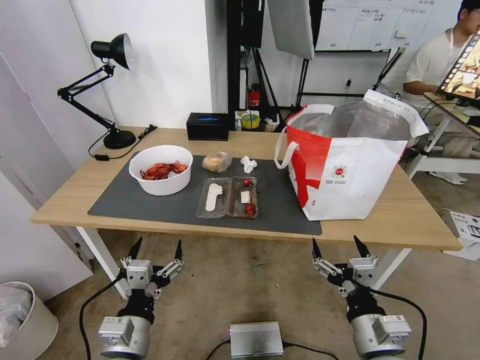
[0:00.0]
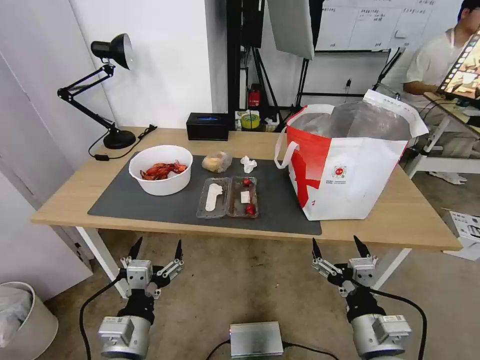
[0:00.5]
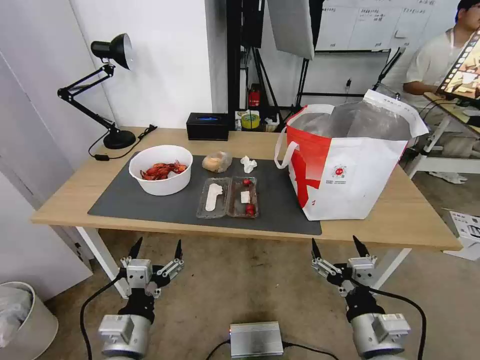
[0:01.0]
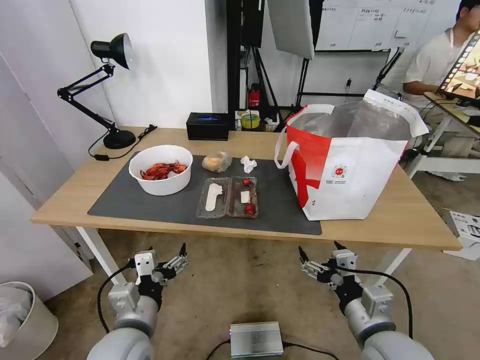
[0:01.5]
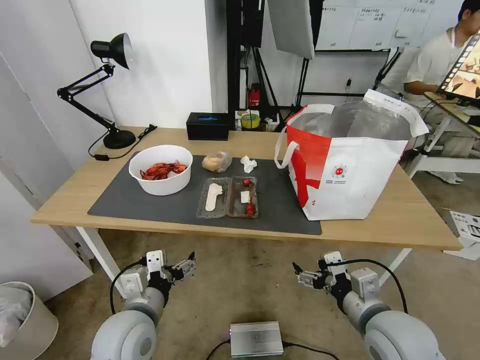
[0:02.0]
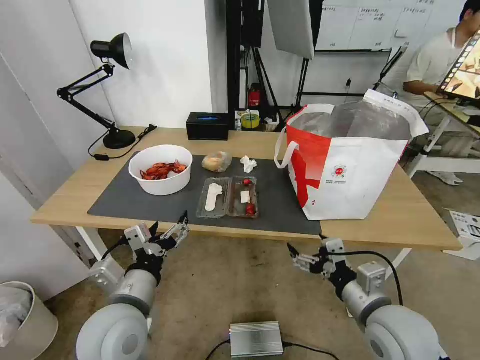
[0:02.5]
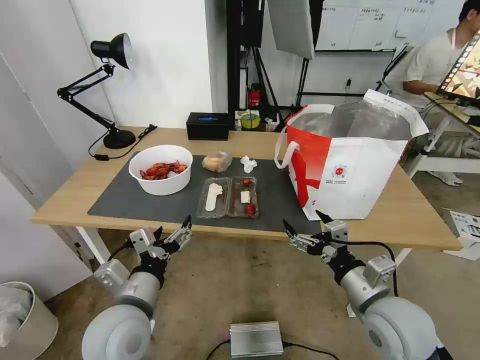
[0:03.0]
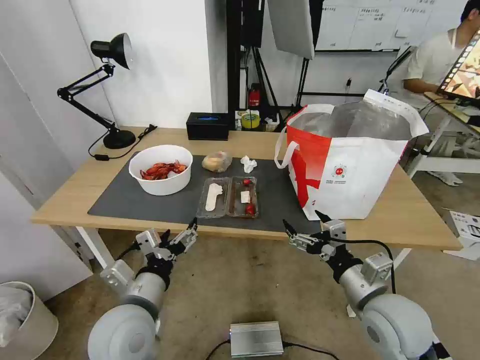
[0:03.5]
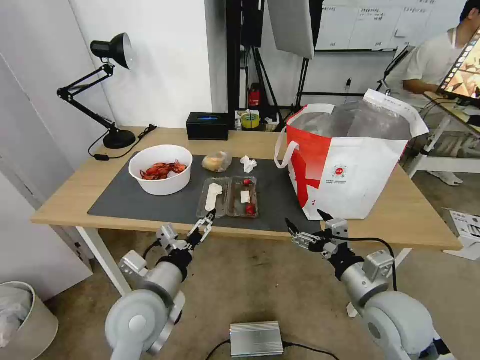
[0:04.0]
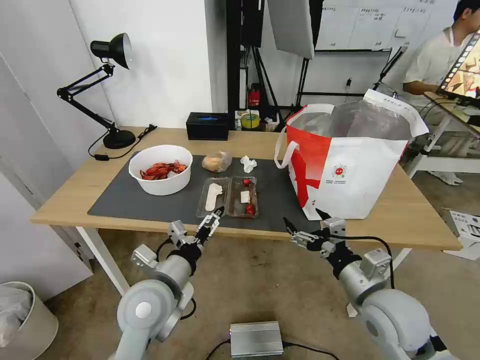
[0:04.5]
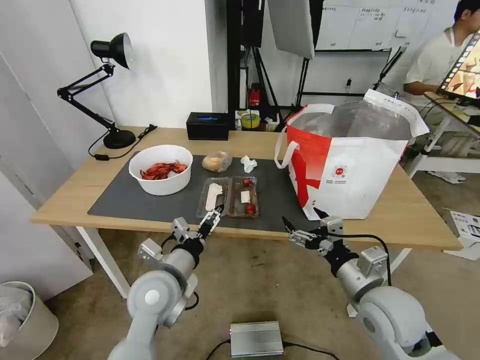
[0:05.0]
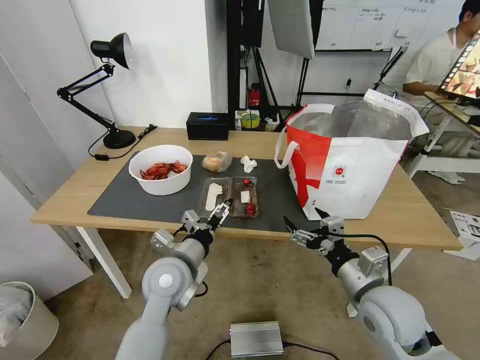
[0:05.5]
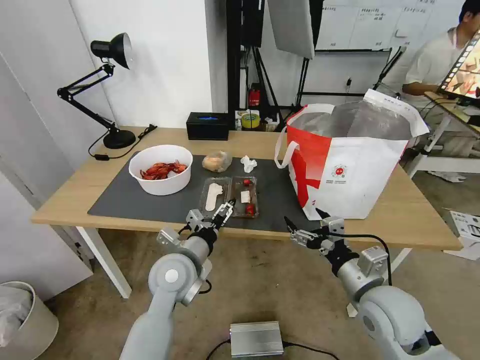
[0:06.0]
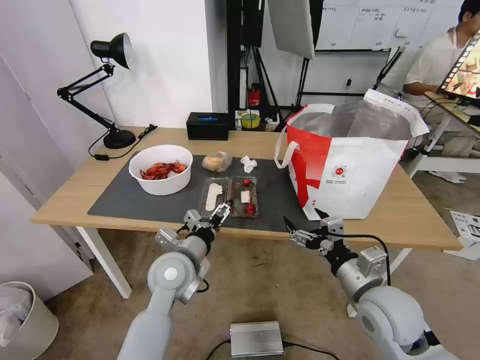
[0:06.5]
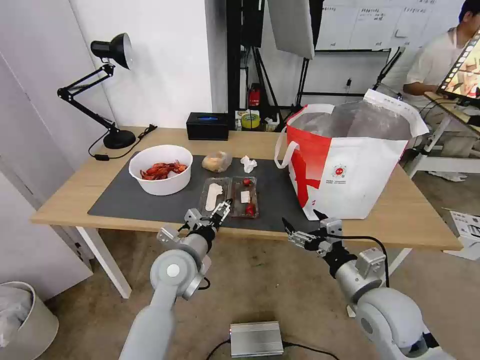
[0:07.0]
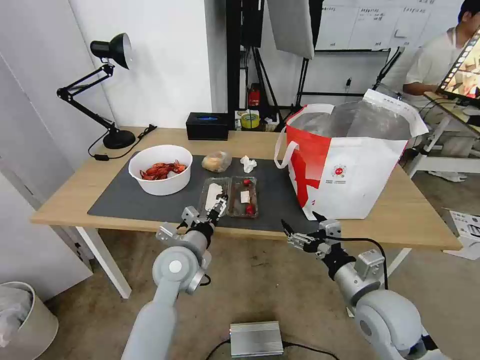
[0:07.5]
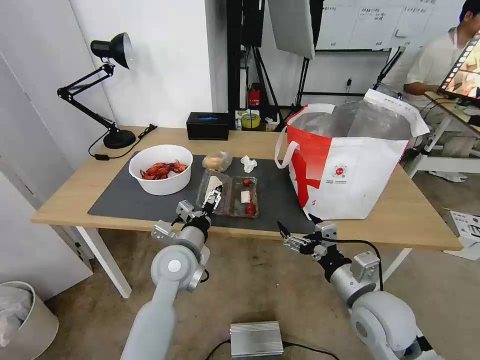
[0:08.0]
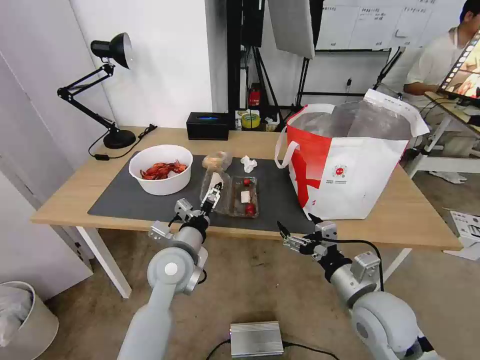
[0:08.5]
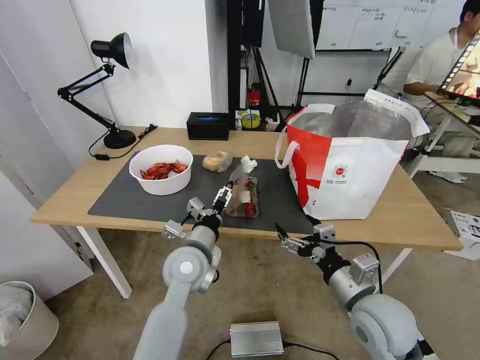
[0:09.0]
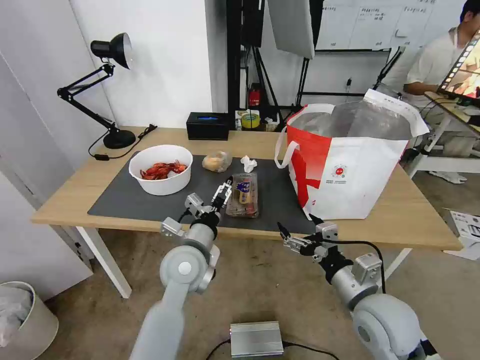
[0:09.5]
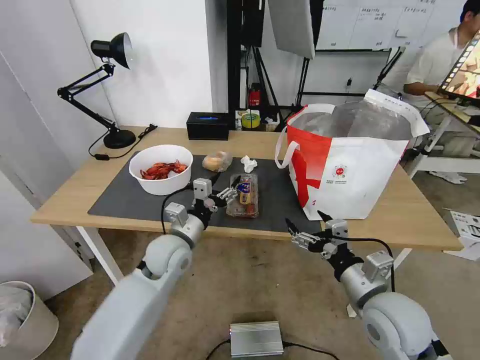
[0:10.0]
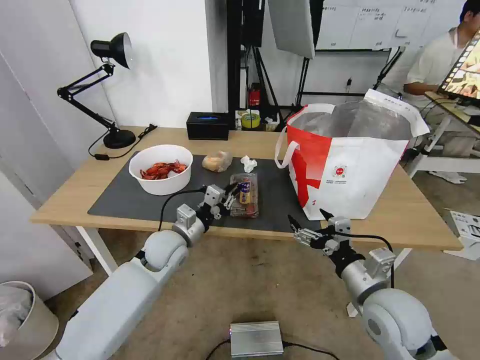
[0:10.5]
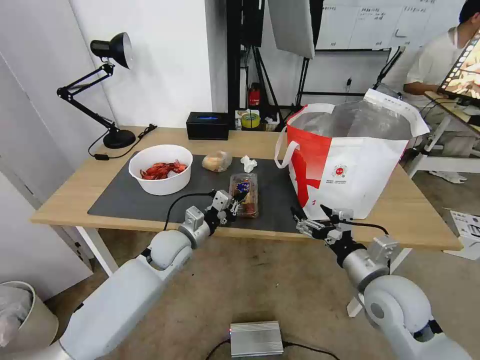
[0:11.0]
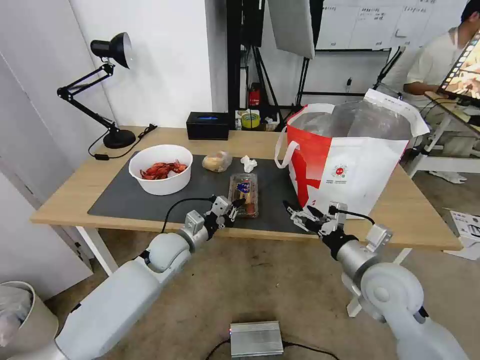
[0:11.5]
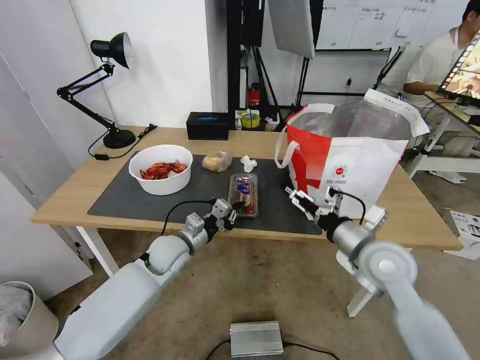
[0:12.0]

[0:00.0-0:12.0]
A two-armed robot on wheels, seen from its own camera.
Task of the whole recording: Pick up the trash from the table and place it into the takeout bag.
0:04.0 to 0:06.0: The left gripper travels forward by approximately 10 cm.
0:06.0 to 0:08.0: The grippers stay close to where they were, moving slightly.
0:10.0 to 0:12.0: The right gripper heads forward, covering about 10 cm. Meanwhile the left gripper moves some 5 cm, and closes its fingers.

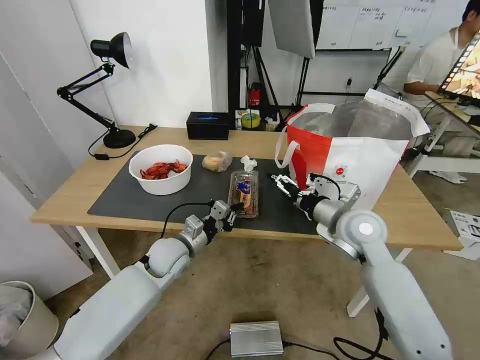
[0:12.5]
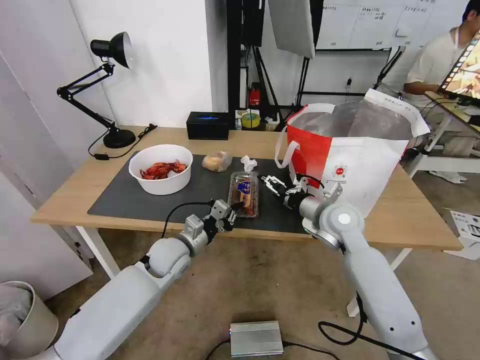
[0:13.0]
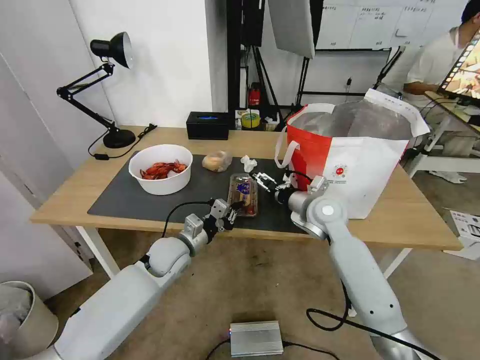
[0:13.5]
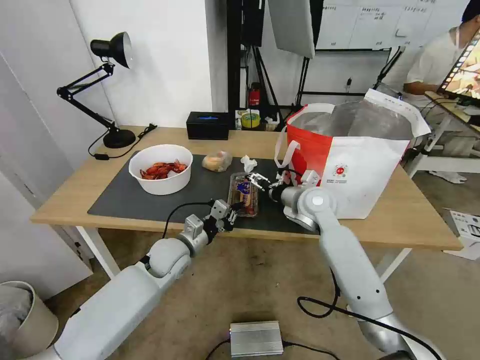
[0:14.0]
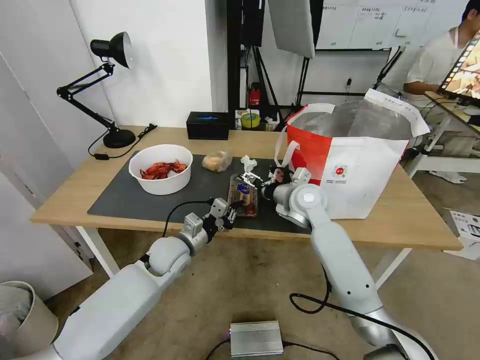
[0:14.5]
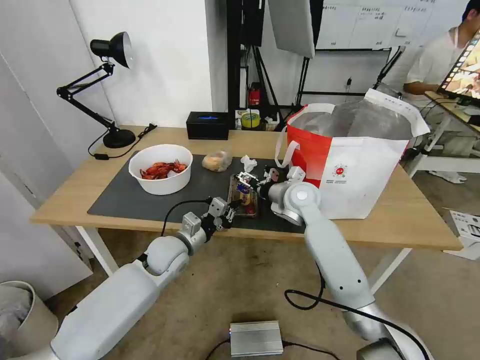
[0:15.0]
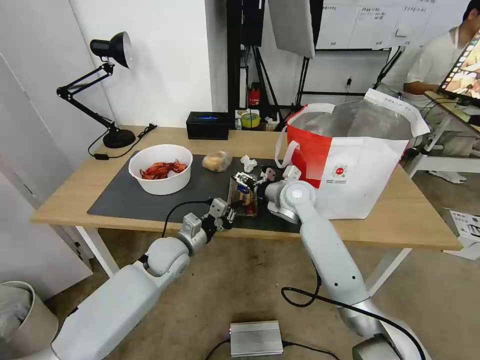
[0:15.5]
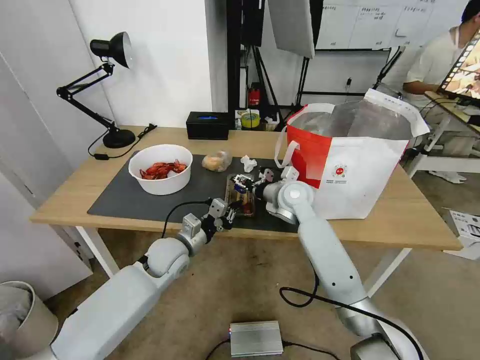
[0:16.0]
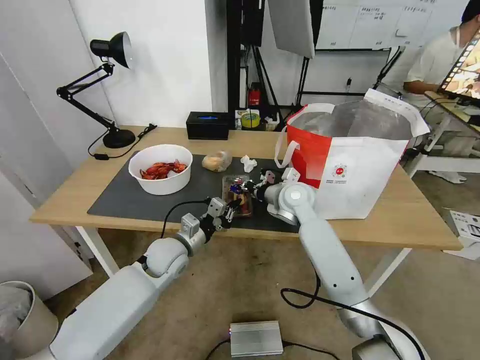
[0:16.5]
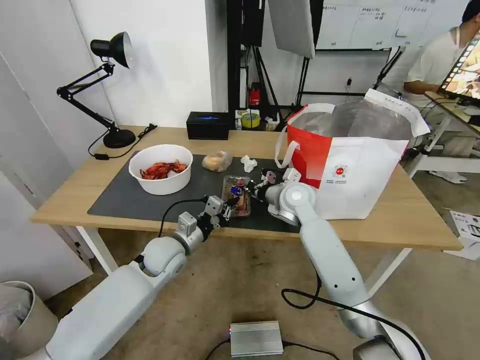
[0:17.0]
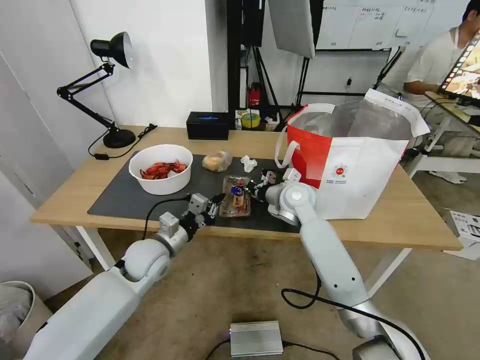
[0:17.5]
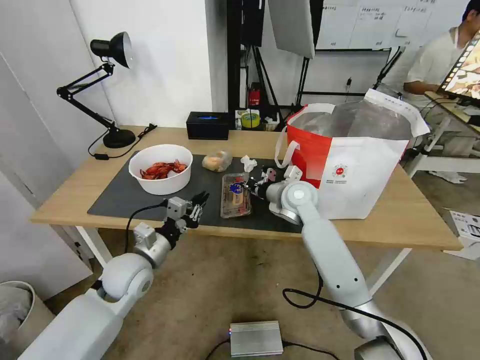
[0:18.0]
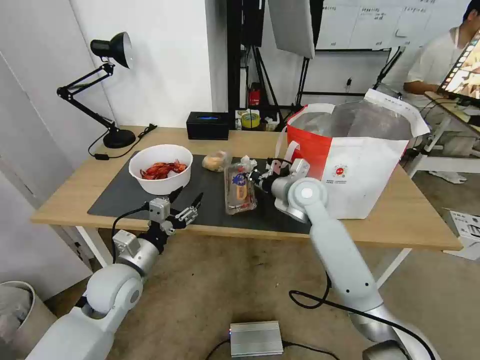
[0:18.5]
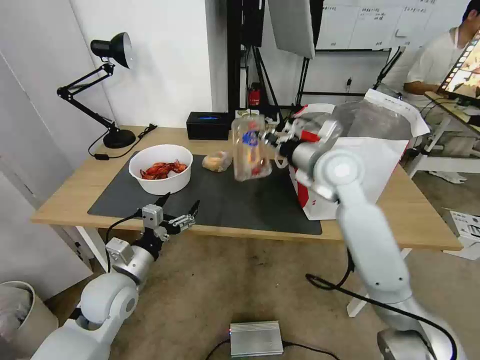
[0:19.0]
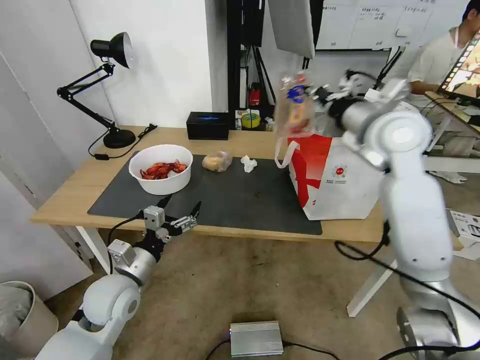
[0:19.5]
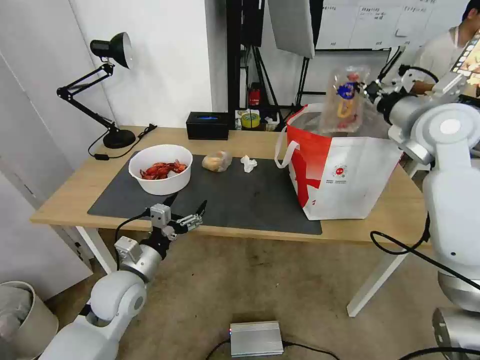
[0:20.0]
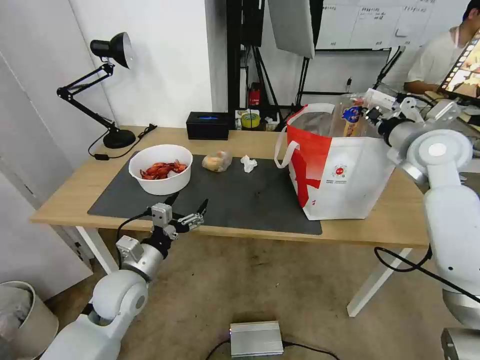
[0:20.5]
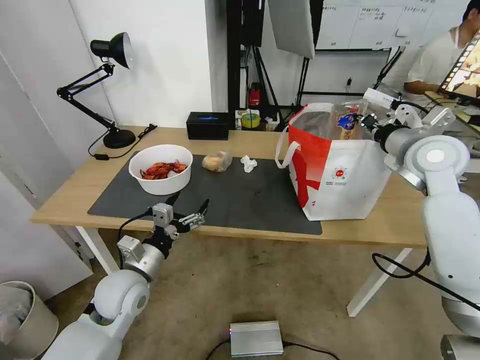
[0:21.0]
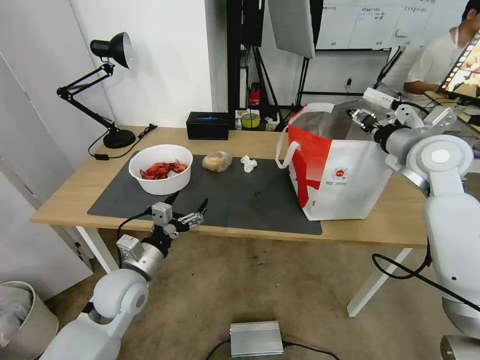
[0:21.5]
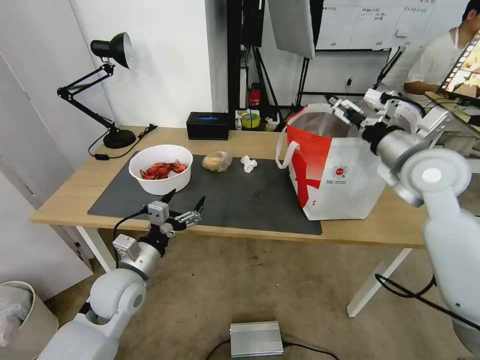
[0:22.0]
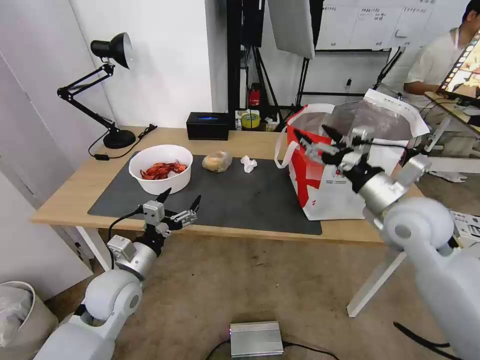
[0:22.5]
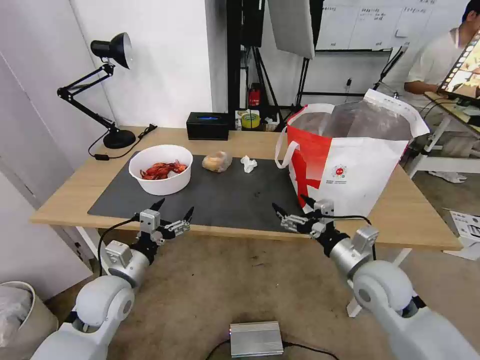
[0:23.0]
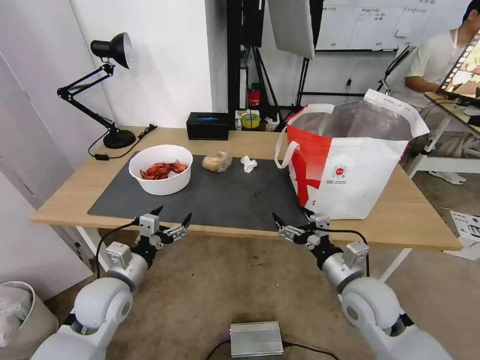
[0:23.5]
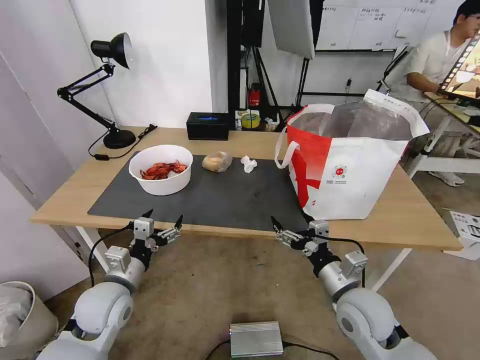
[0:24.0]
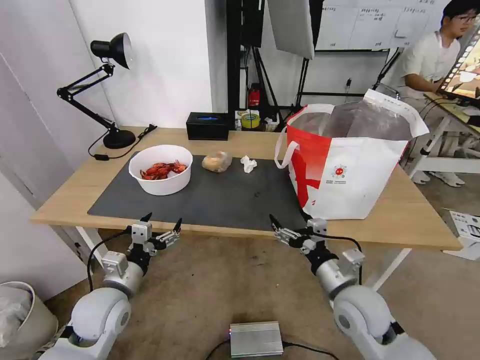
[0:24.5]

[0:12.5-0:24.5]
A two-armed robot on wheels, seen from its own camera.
Task of the whole recording: Pick up the trash from the table and place it into the takeout bag.
0:12.5 to 0:14.5: The right gripper goes roughly 15 cm forward and to the left.
0:14.5 to 0:16.5: The right gripper closes up.
0:16.5 to 0:18.5: The left gripper heads backward and to the left, covering about 10 cm, and opens its fingers. The right gripper closes up.
0:18.5 to 0:20.5: The right gripper travels to the right and upward by some 25 cm.
0:20.5 to 0:22.5: The right gripper goes roughly 15 cm backward, downward and to the left, and opens.
0:22.5 to 0:24.5: The right gripper goes approximately 20 cm downward, backward and to the left.

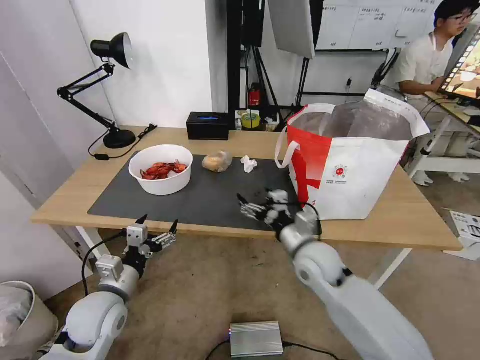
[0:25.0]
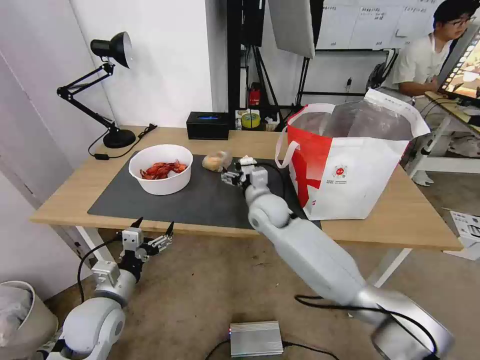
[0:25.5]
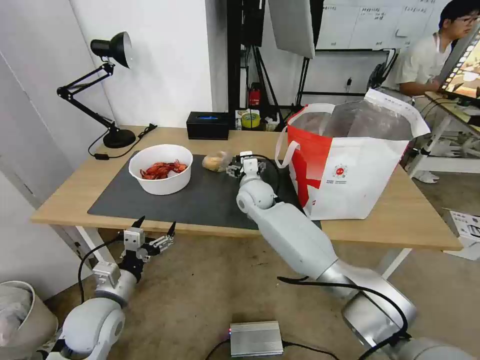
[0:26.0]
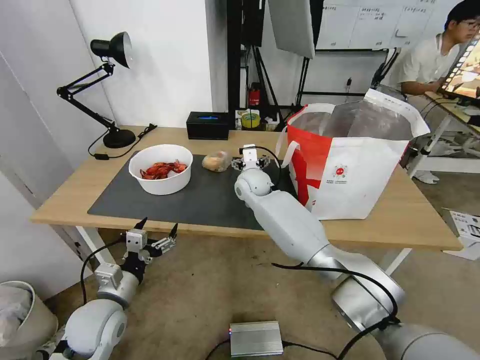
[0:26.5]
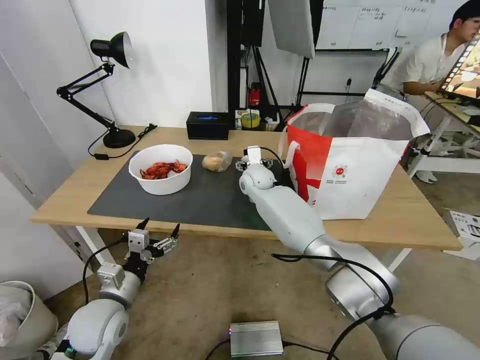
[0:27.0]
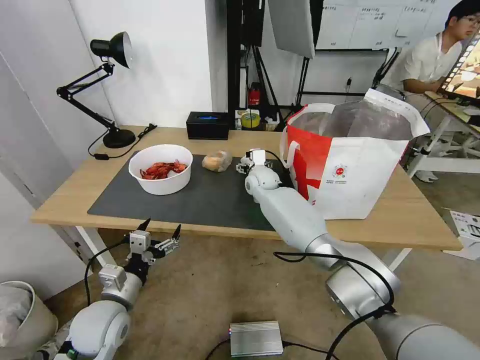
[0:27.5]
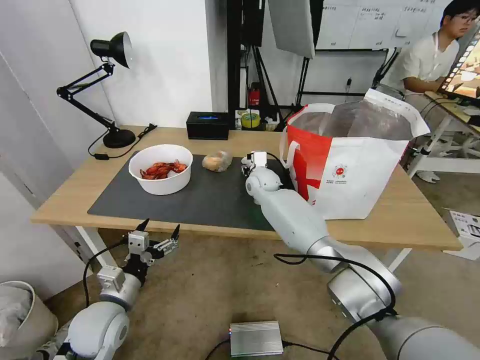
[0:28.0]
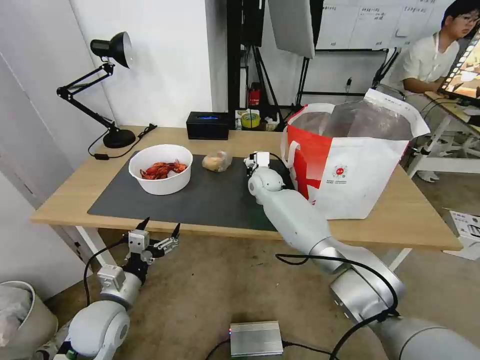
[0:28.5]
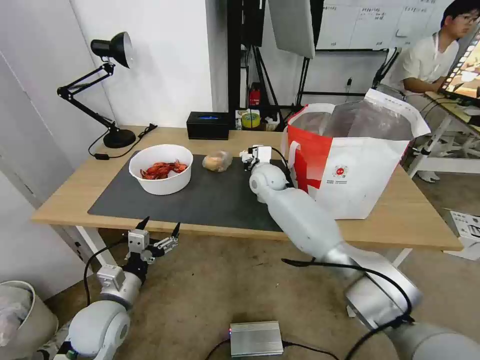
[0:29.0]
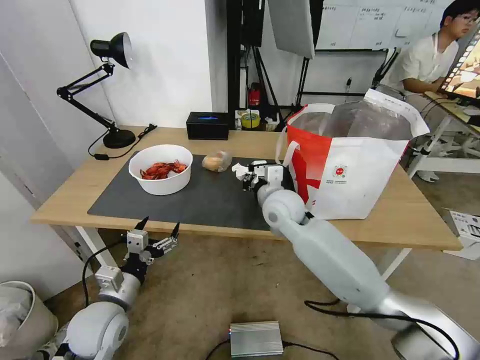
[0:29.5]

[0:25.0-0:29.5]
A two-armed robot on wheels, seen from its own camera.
Task of the whole recording: Pick up the trash from the table and place it into the takeout bag.
0:25.0 to 0:27.0: The right gripper goes some 25 cm forward and to the left.
0:27.0 to 0:29.5: The right gripper is displaced backward by some 15 cm, and closes its fingers.
